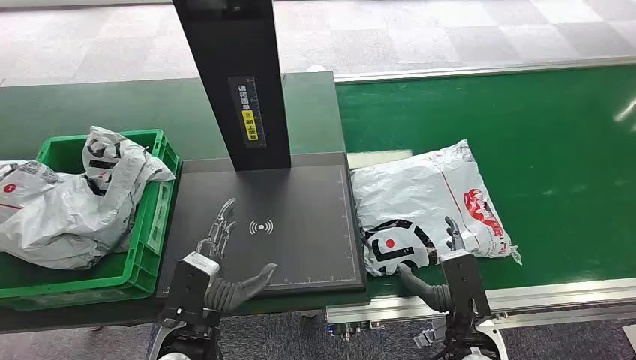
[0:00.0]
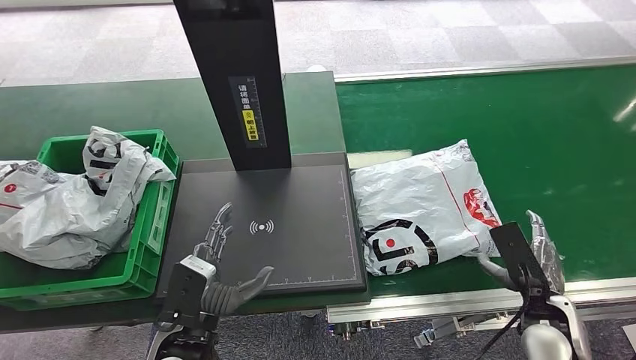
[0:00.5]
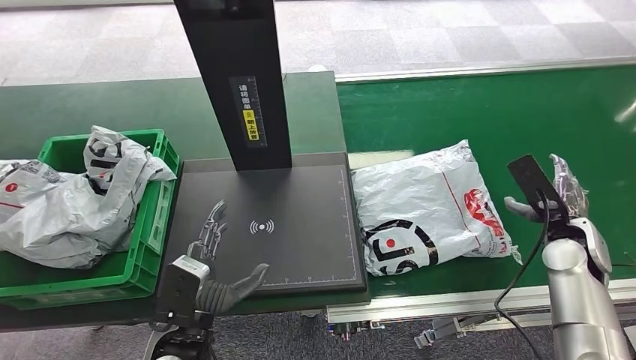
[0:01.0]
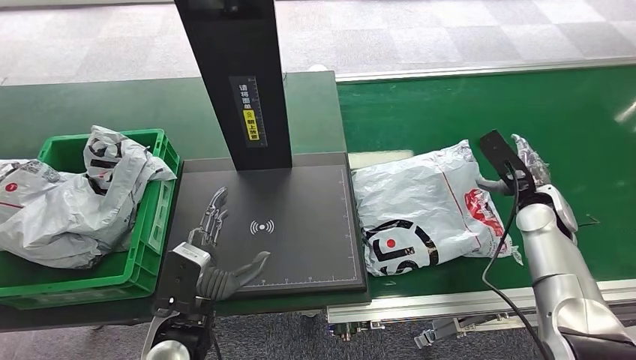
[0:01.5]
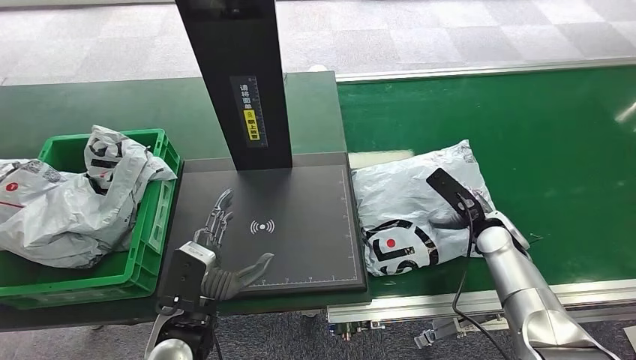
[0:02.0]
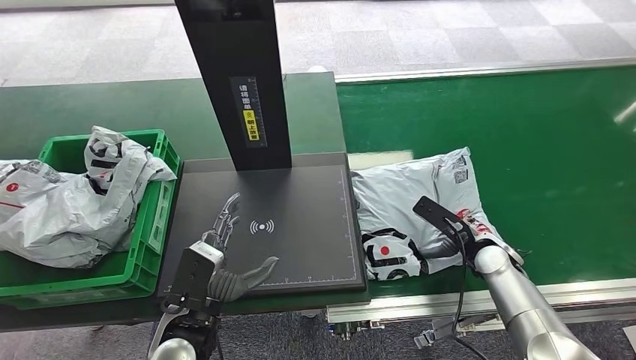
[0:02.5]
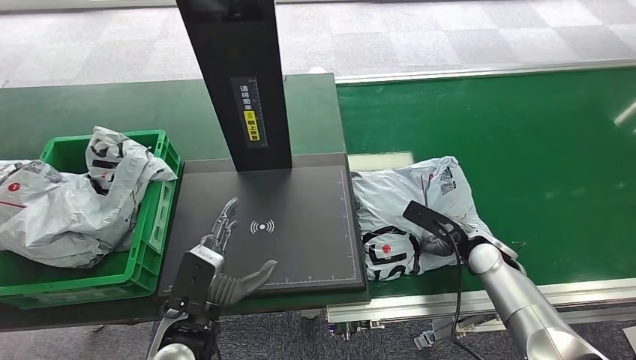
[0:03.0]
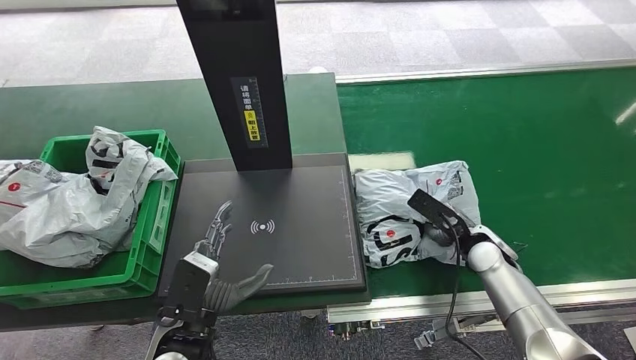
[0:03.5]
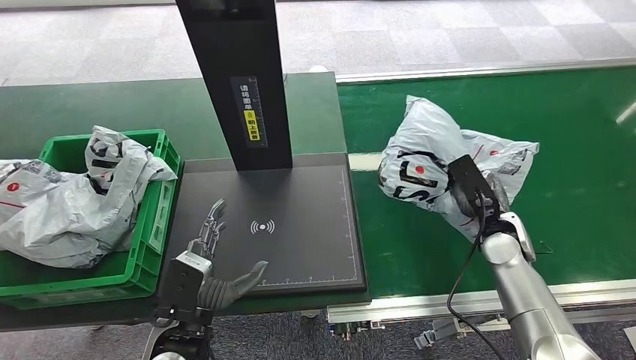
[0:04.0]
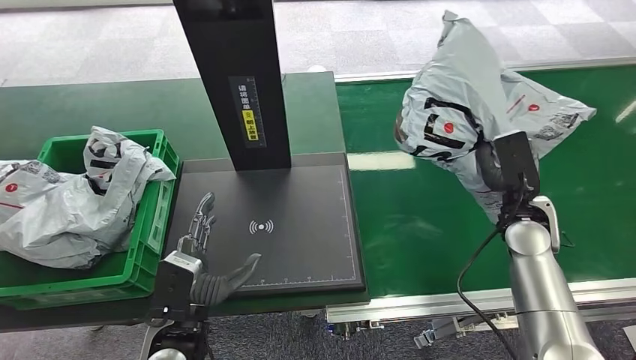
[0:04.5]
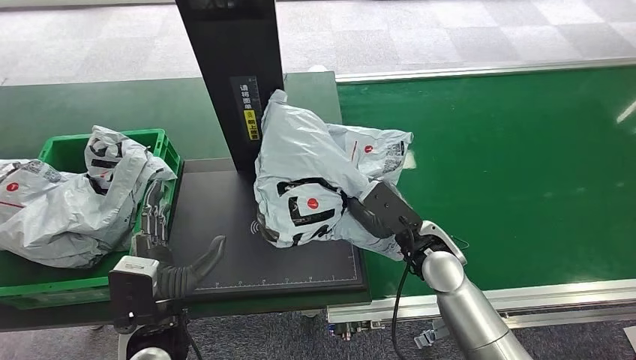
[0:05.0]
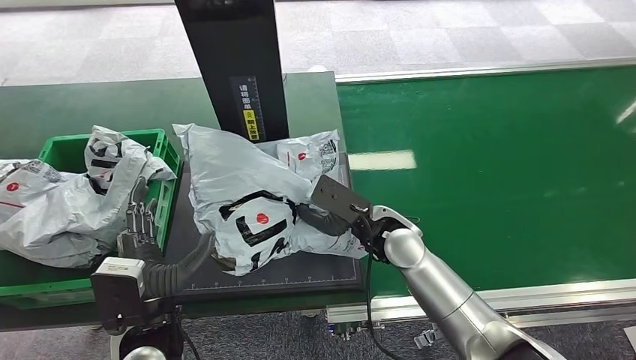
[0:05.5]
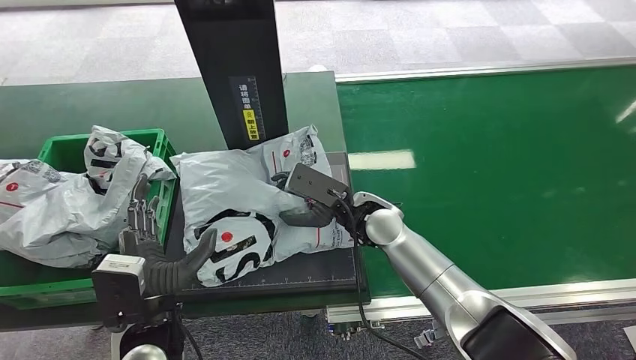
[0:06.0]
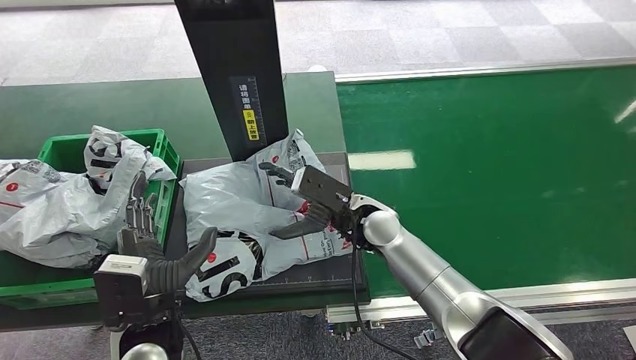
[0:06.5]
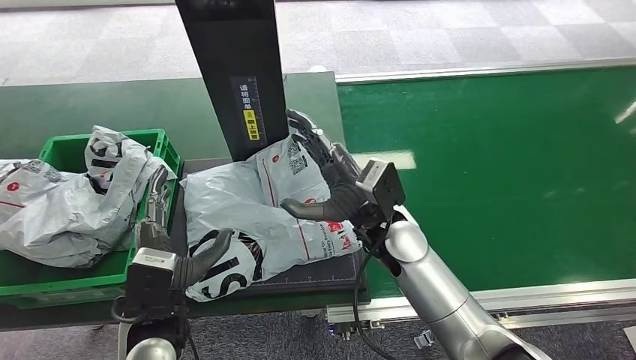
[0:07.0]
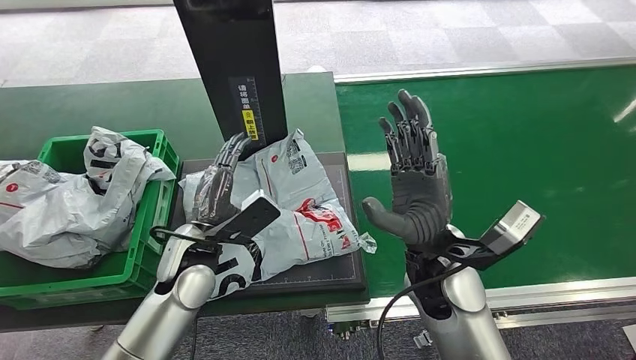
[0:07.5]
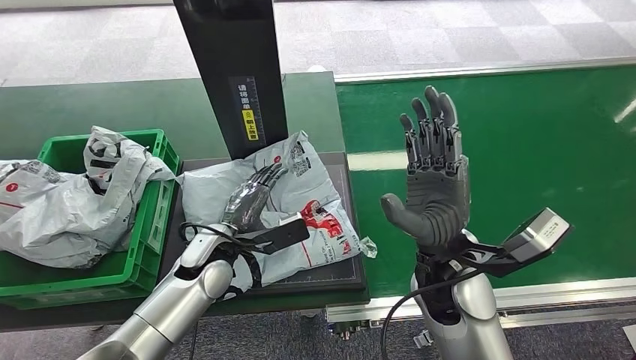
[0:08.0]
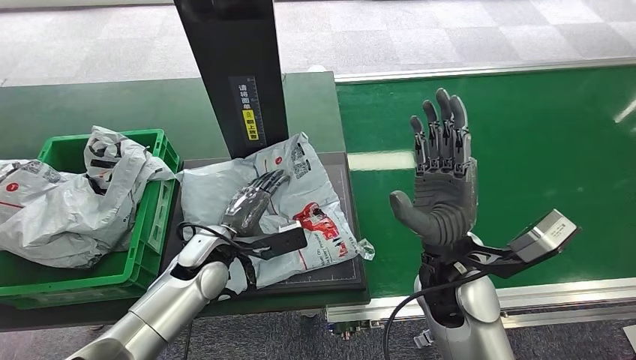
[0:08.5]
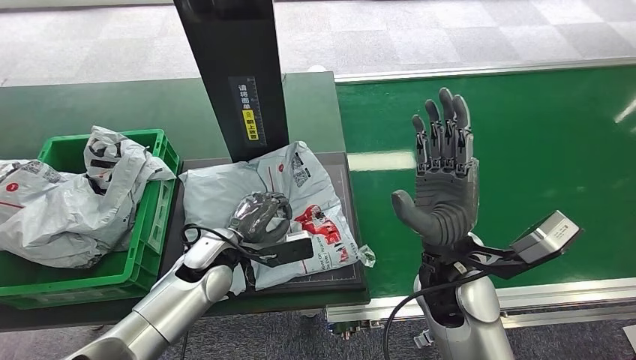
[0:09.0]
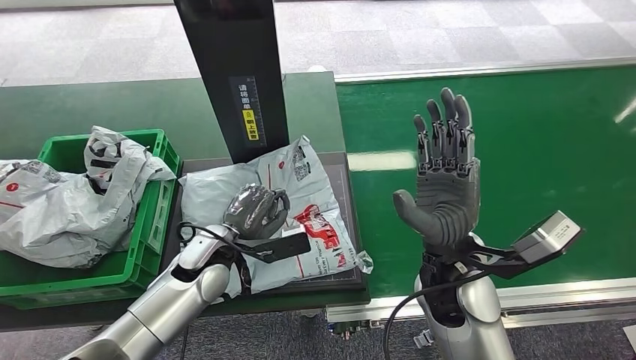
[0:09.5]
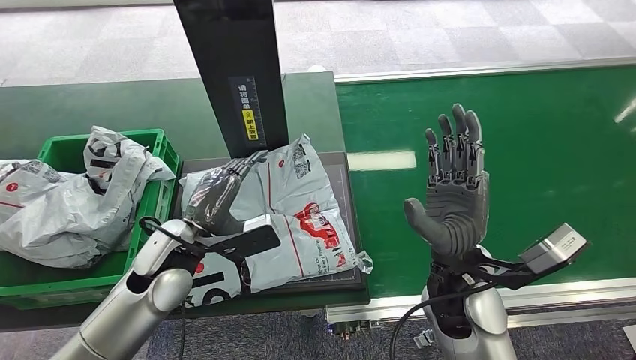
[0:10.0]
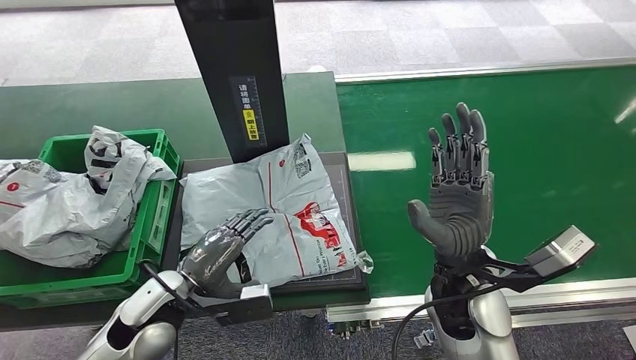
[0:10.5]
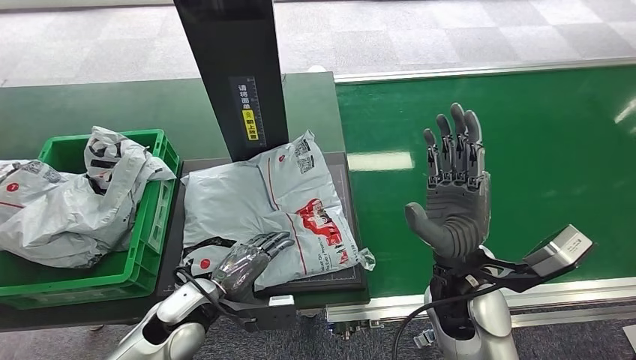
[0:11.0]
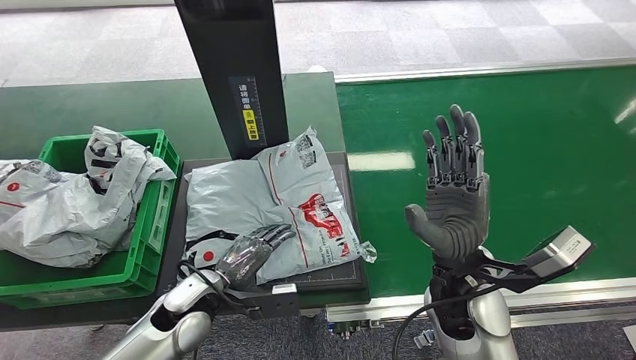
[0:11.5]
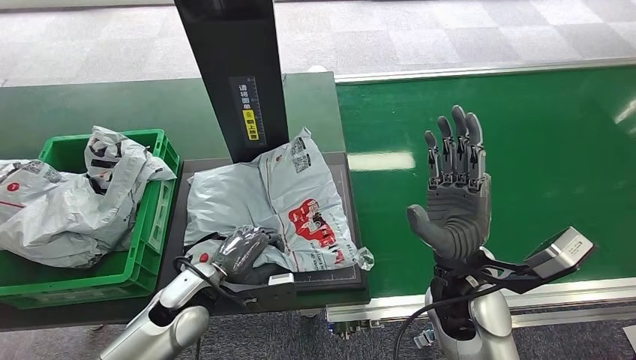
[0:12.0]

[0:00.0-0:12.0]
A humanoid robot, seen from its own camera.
Step, 0:00.0 to 0:04.0: Pick up the package from the conveyor belt.
Step, 0:04.5 to 0:07.0: Place the package onto the inbound machine.
0:08.0 to 0:10.0: The left hand shifts about 5 cm upward.
0:10.0 to 0:12.0: The left hand is displaced downward by about 10 cm.

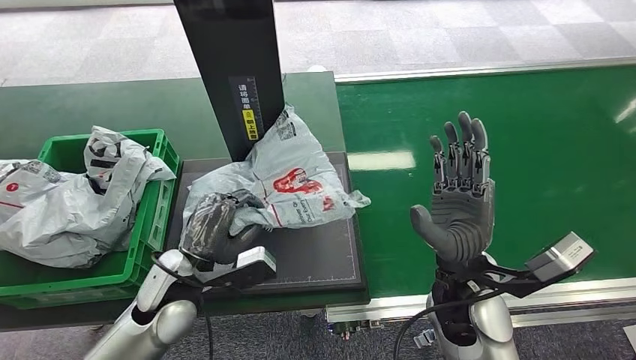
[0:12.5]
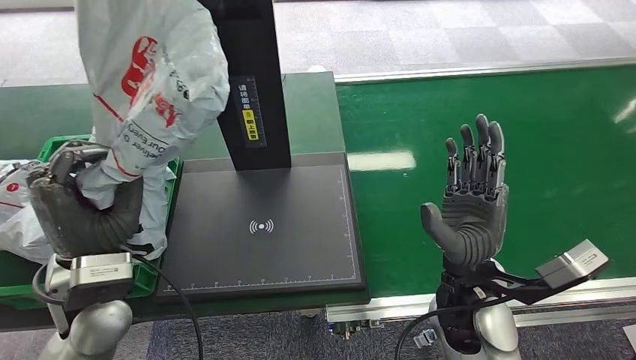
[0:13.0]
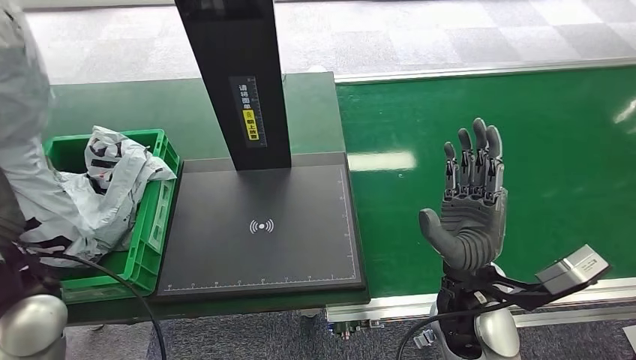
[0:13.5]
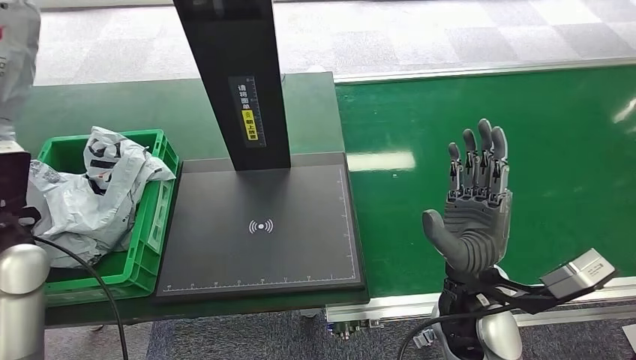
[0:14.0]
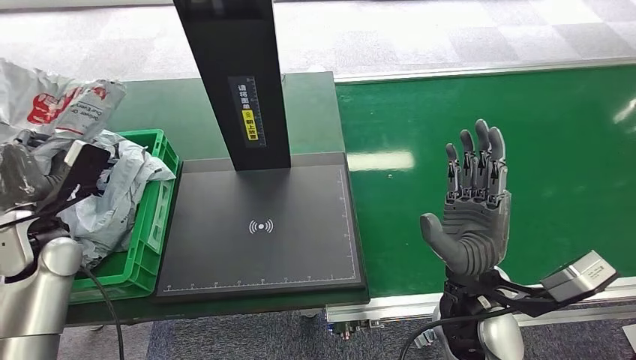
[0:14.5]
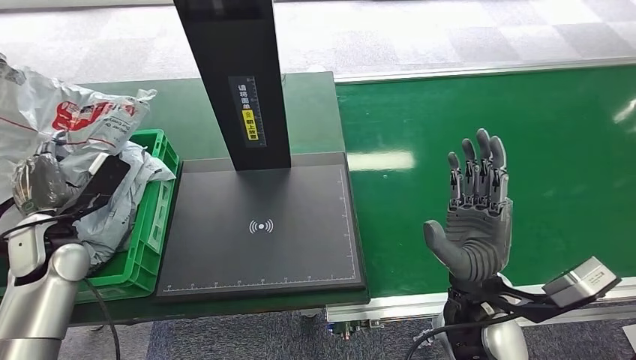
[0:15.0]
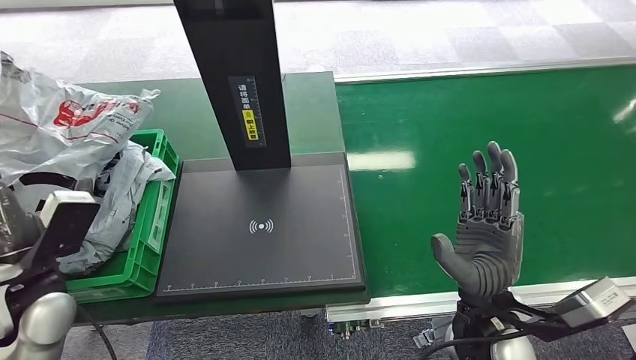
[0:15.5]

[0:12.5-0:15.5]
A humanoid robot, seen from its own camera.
Step, 0:13.5 to 0:15.5: Place the package into the parcel locker.
0:14.0 to 0:15.5: The left hand goes about 5 cm downward.

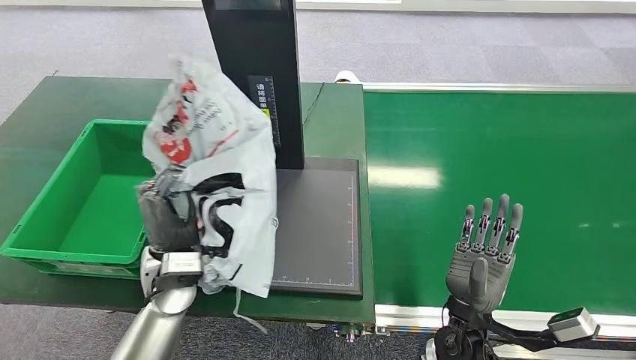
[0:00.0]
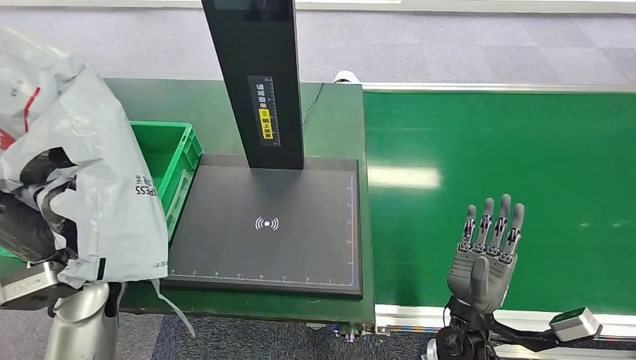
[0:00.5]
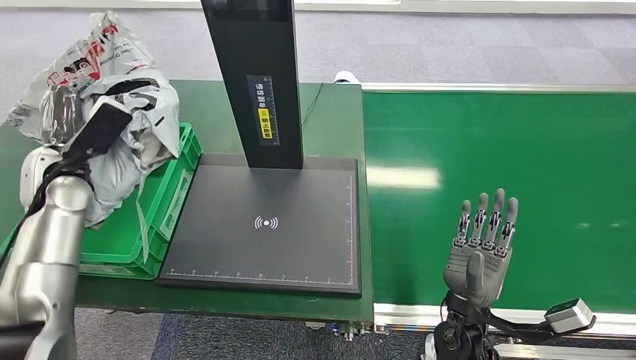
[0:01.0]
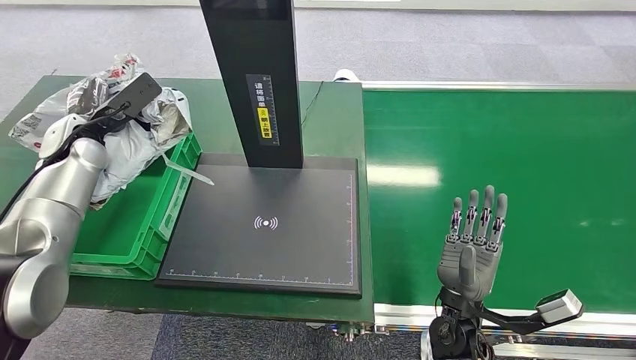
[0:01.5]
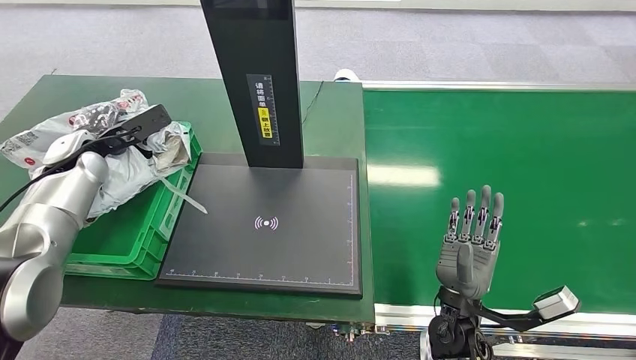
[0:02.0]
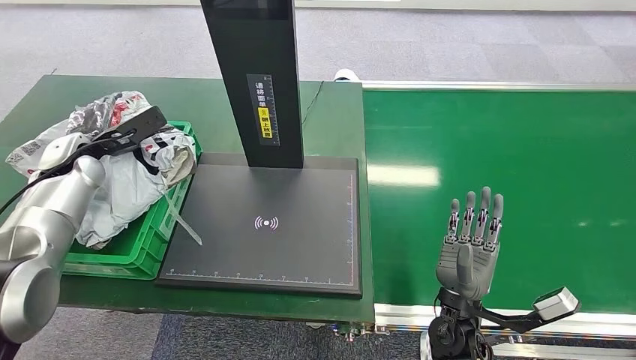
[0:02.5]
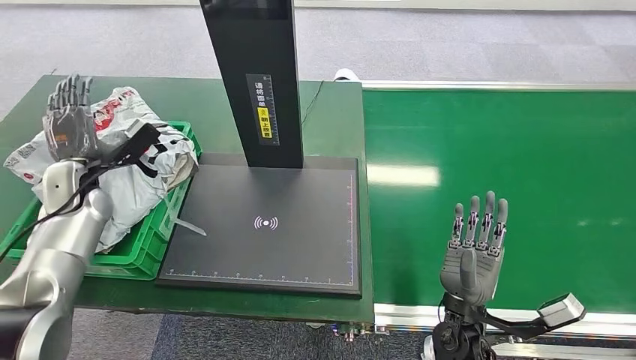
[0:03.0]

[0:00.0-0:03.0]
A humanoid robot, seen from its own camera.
0:01.5 to 0:03.0: The left hand goes approximately 5 cm downward.
